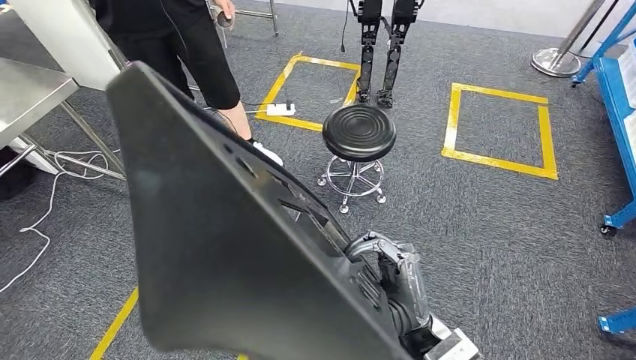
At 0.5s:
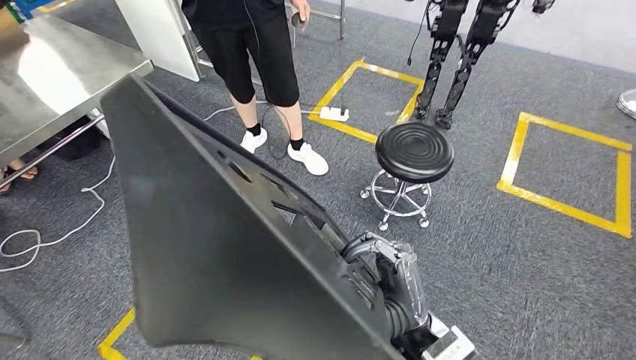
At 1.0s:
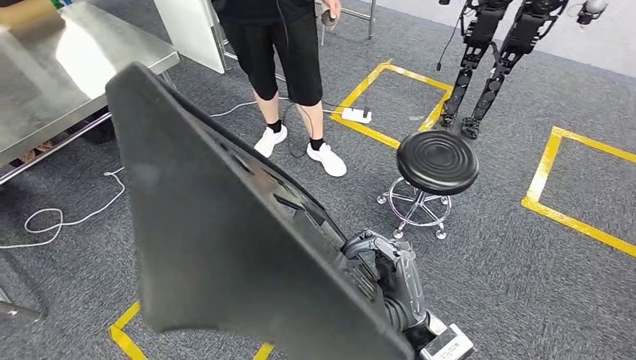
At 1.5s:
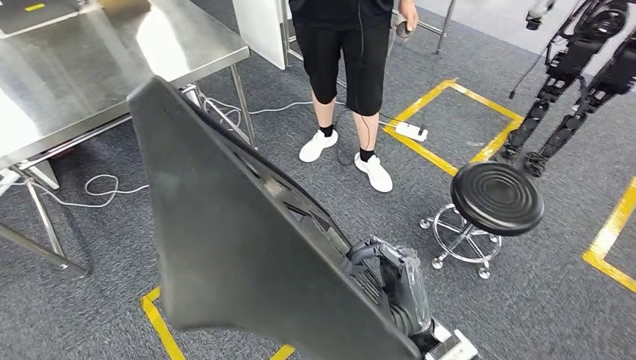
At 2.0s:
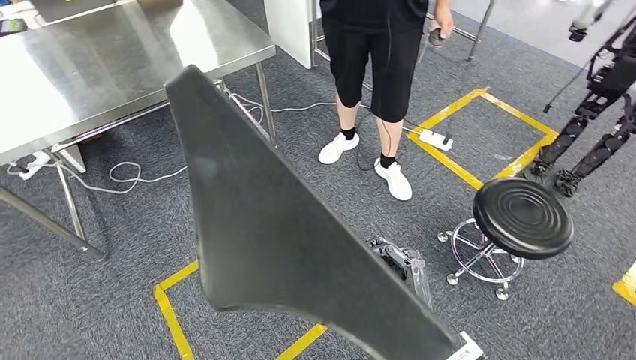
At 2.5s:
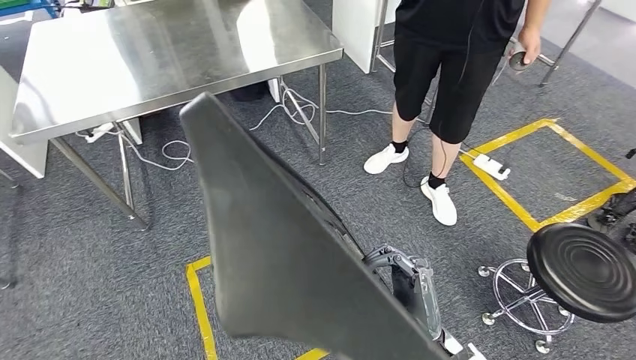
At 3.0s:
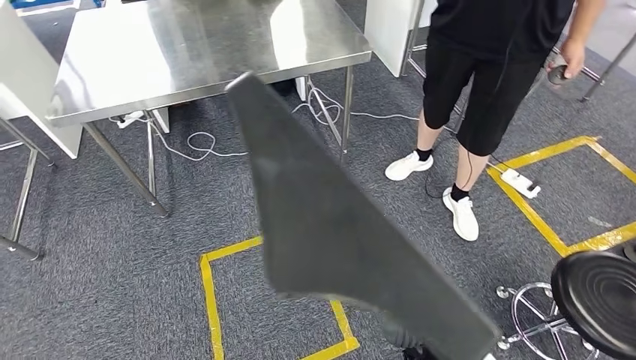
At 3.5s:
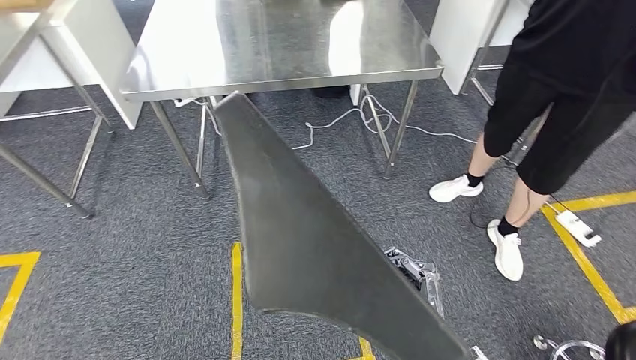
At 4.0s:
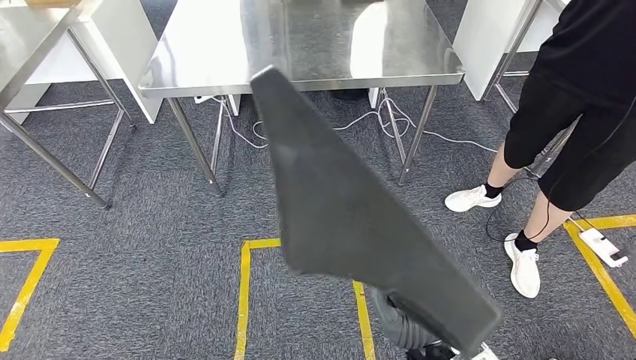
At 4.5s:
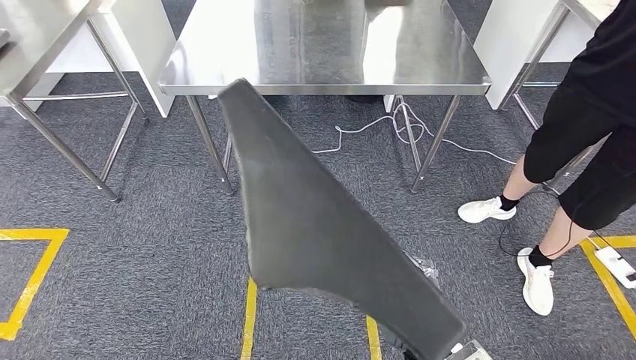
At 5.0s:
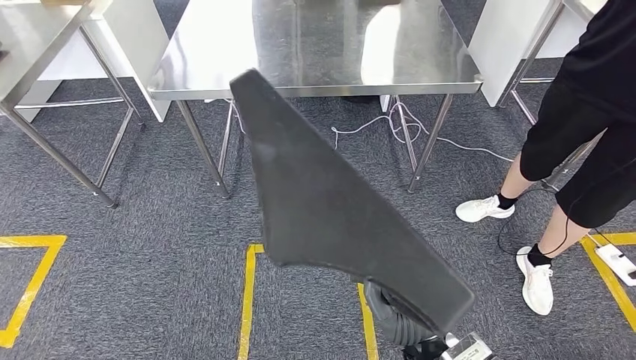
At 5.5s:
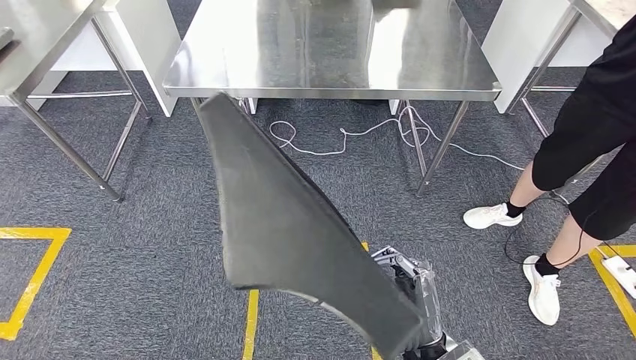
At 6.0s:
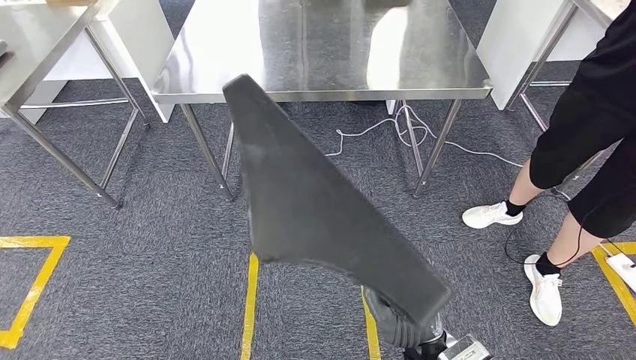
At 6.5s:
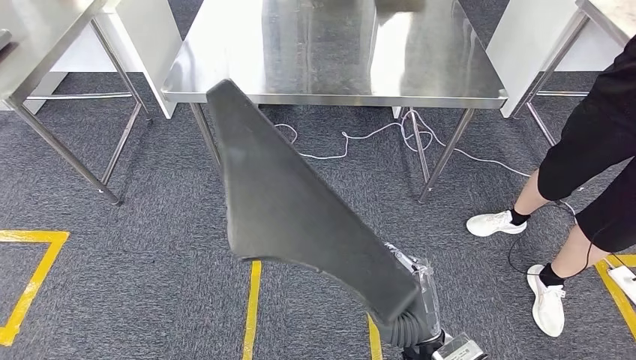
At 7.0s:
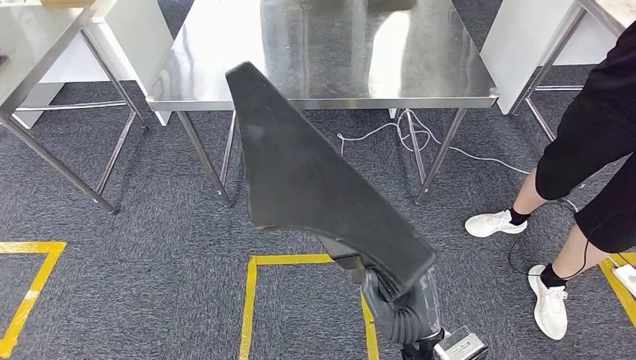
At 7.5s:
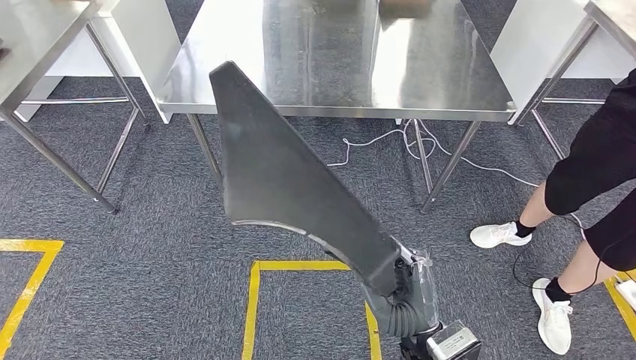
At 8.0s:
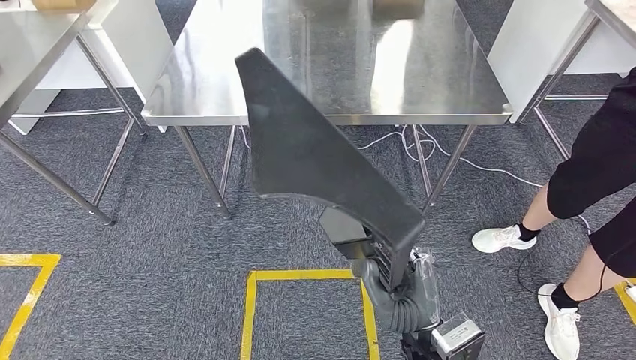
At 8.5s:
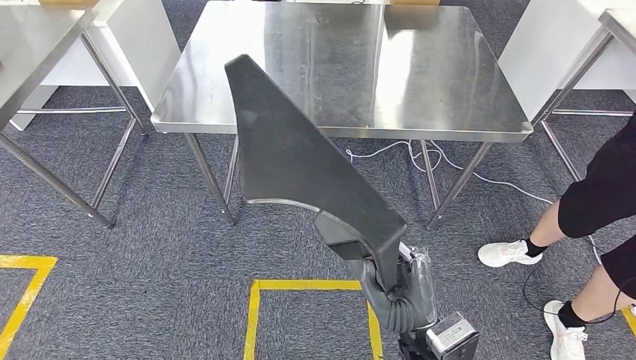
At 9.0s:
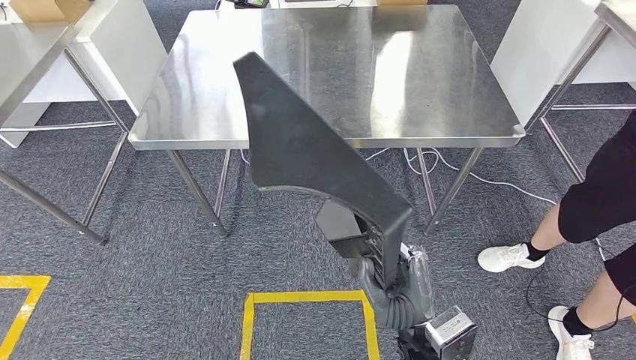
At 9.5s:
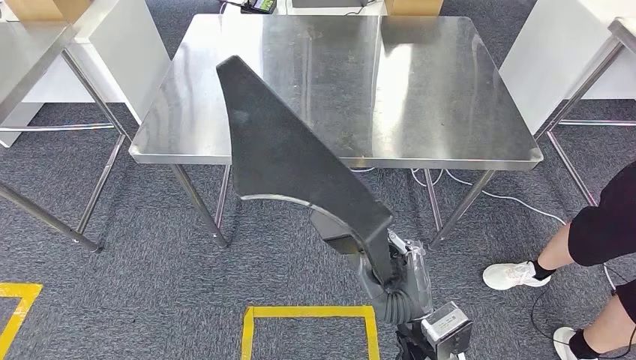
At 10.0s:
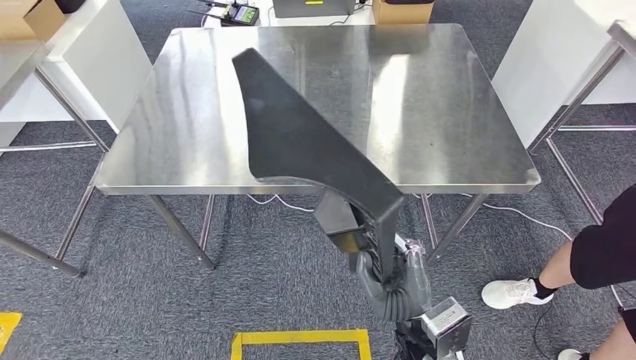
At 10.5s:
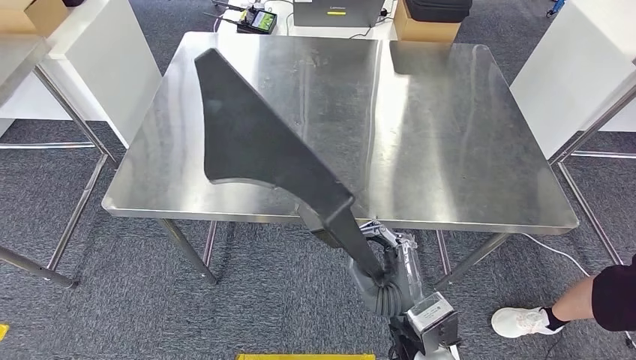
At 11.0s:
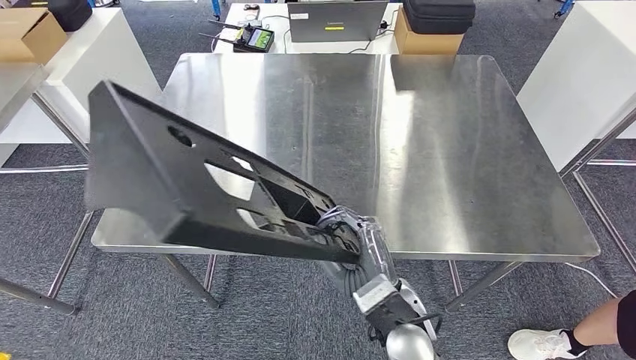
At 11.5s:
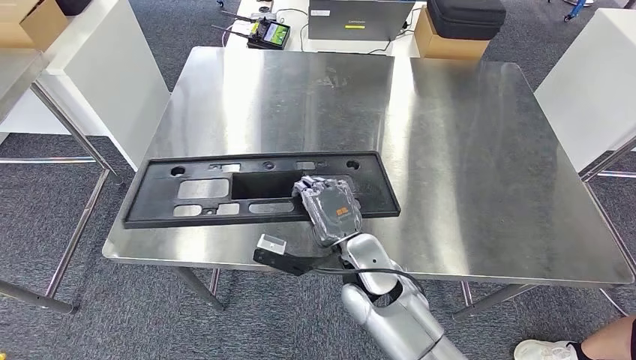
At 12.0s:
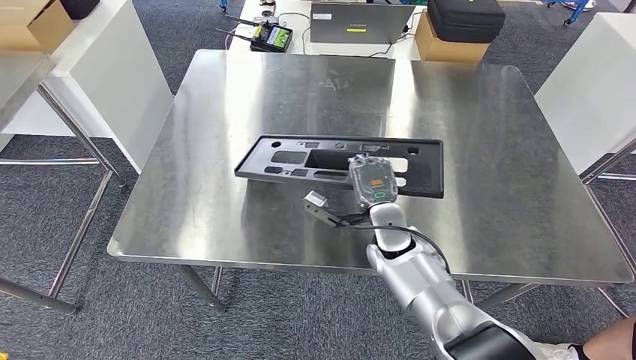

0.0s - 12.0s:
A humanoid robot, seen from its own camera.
Step, 0.0s - 9.5s: Move the large material to the workbench.

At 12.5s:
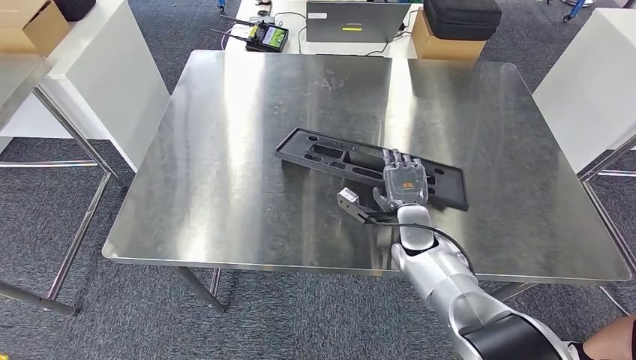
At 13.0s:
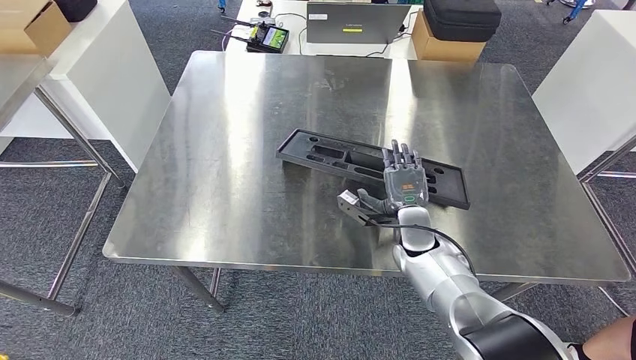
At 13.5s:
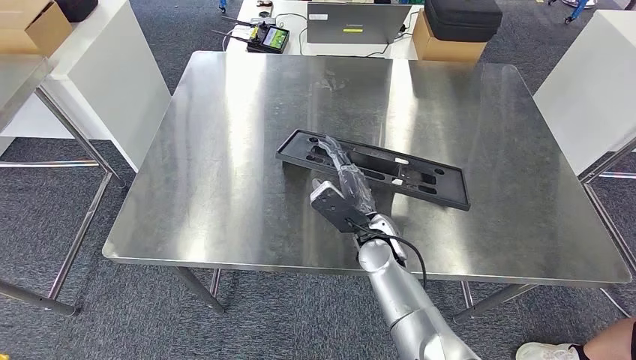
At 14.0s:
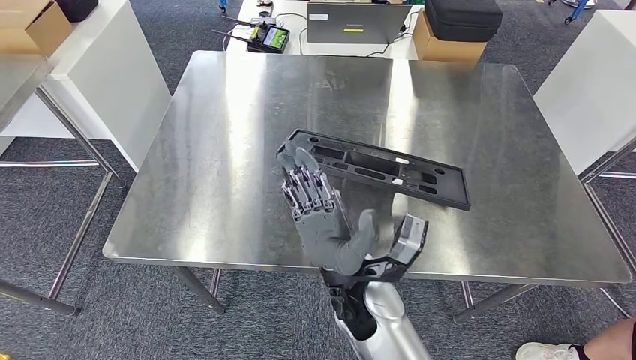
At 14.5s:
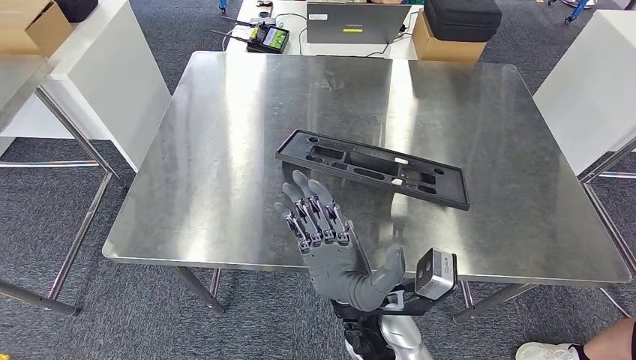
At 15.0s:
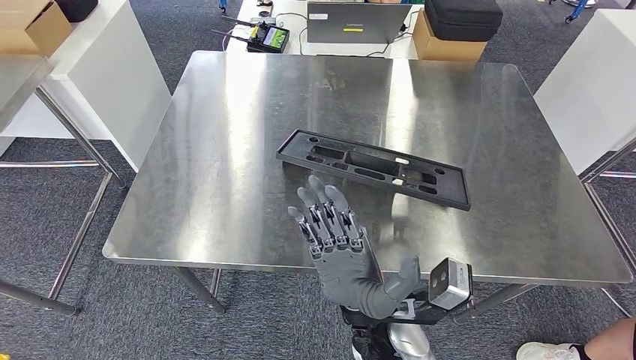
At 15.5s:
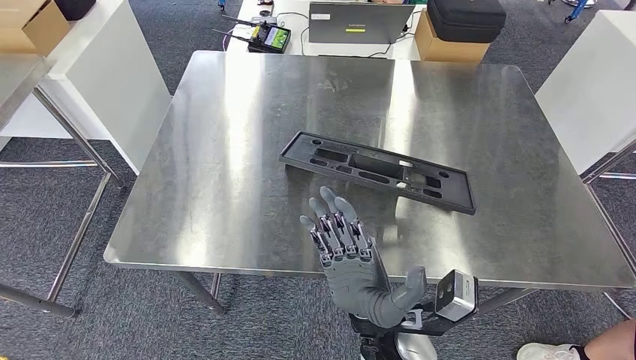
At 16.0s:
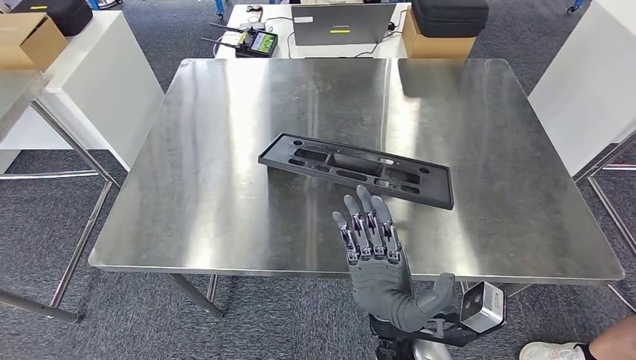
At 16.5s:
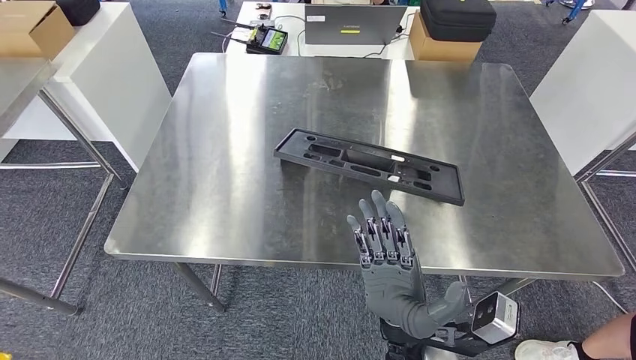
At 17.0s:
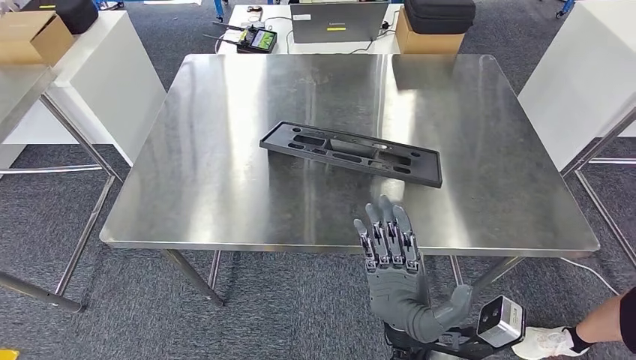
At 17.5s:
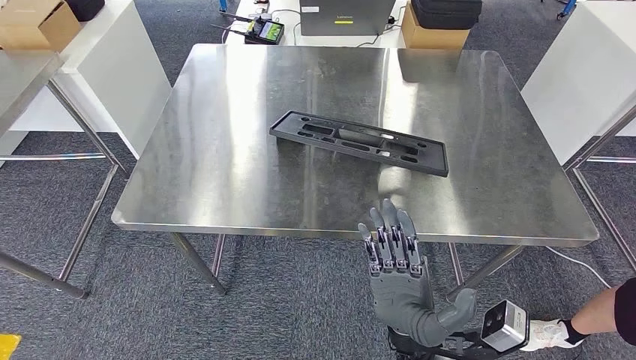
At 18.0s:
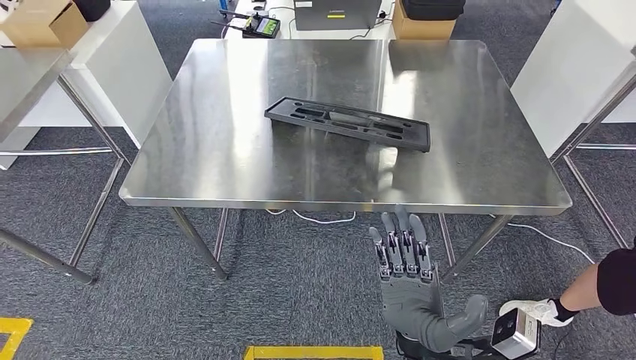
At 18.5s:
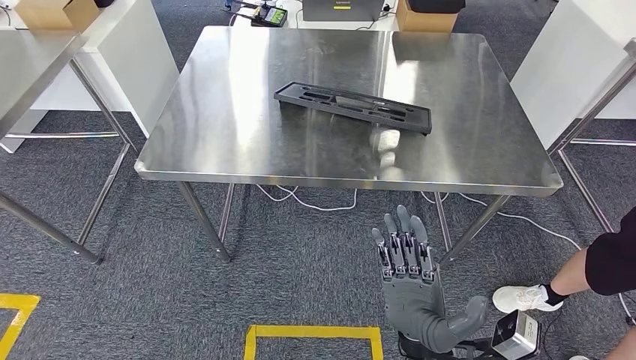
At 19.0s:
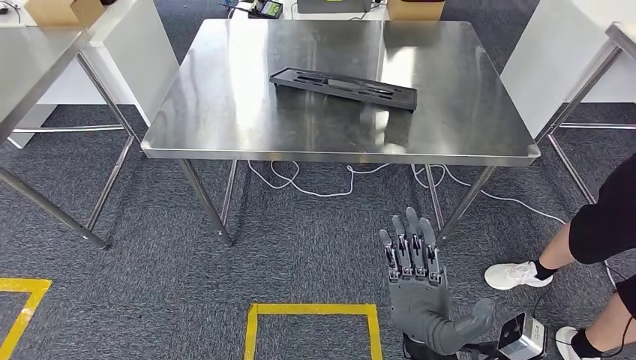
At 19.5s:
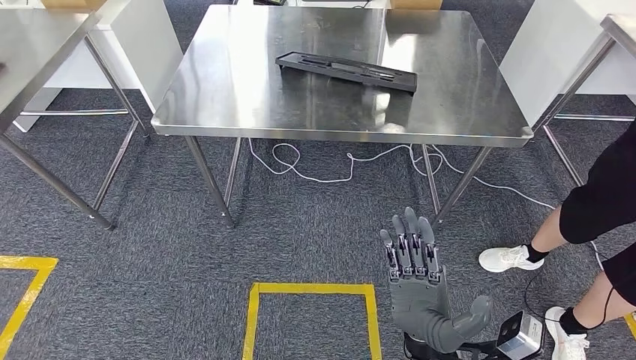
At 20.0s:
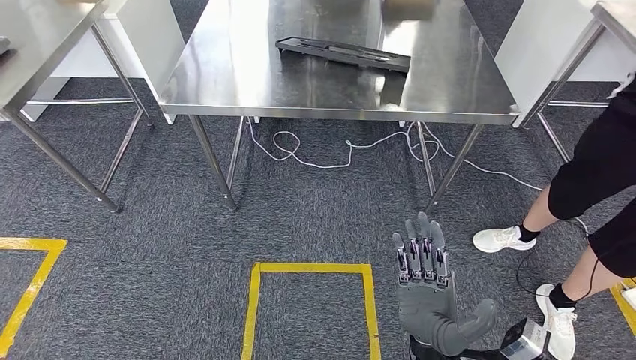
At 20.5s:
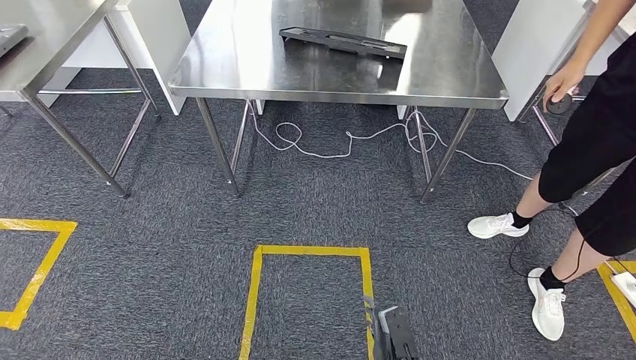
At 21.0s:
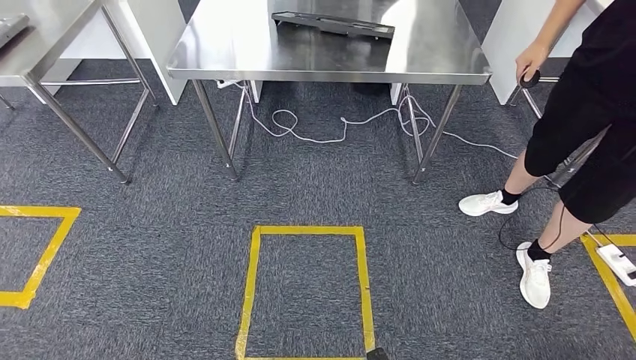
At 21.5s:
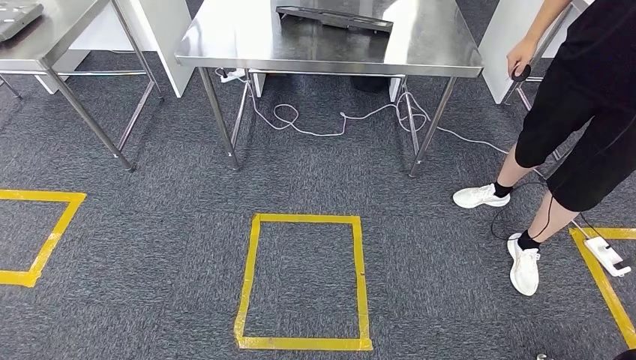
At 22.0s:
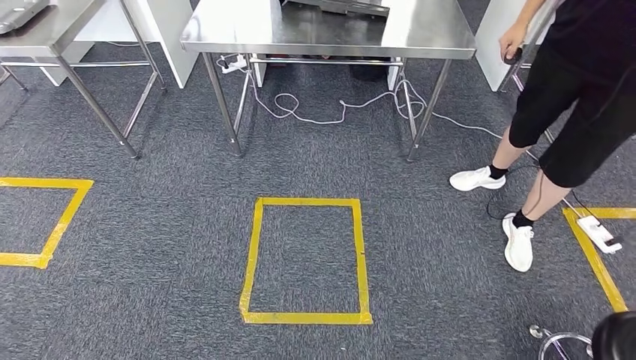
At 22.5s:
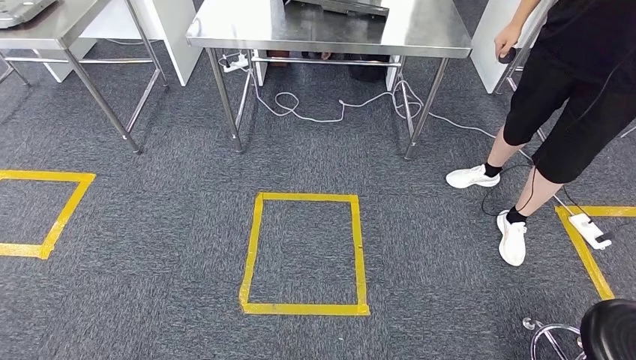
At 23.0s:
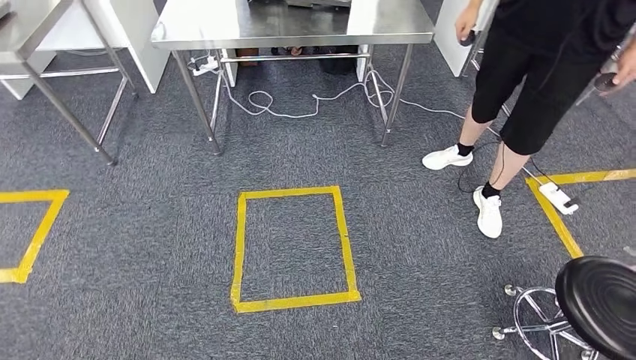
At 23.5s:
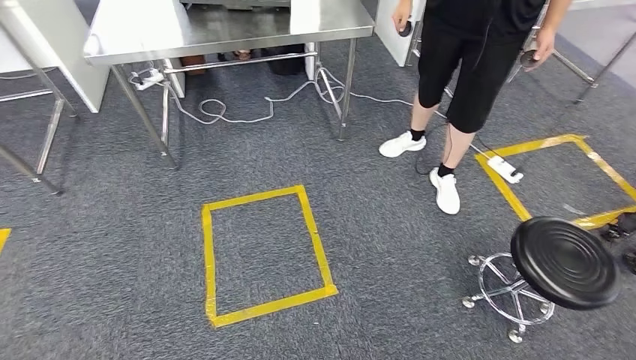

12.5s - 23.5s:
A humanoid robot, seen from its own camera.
Step, 12.5s - 20.0s: Insert the large material into the corresponding slot on the workbench.
12.5s - 14.5s: The right hand heads backward and to the left, covering about 20 cm.
